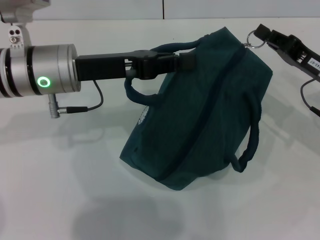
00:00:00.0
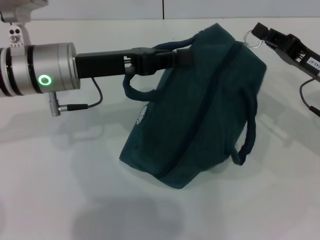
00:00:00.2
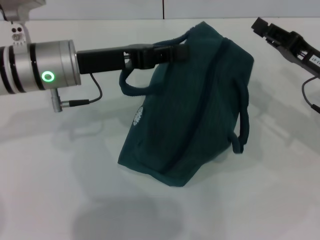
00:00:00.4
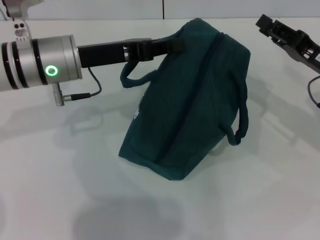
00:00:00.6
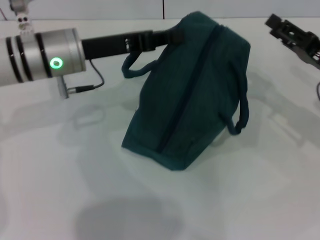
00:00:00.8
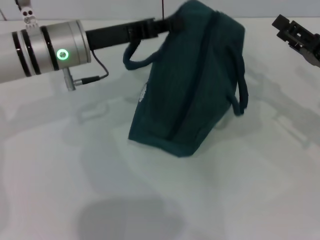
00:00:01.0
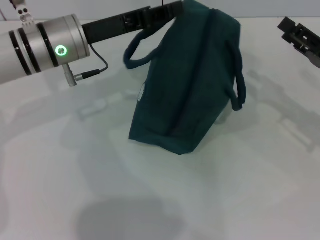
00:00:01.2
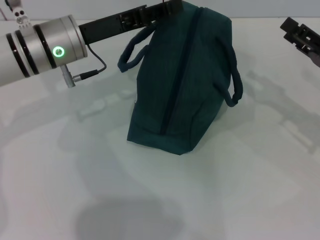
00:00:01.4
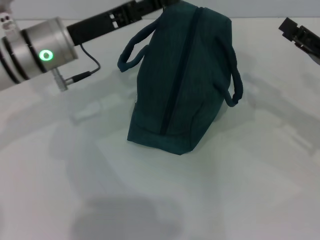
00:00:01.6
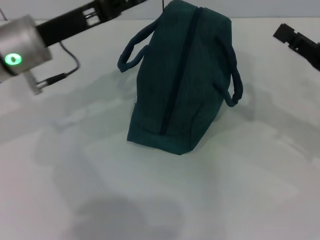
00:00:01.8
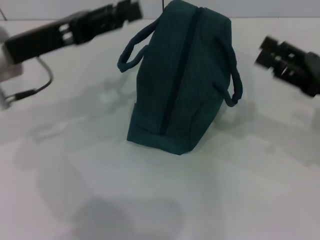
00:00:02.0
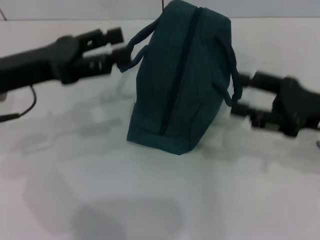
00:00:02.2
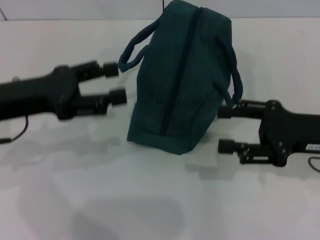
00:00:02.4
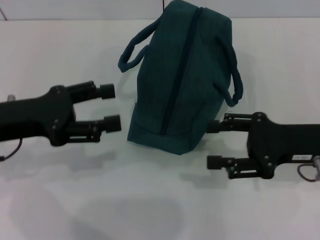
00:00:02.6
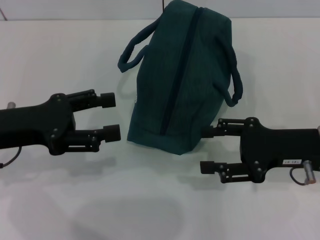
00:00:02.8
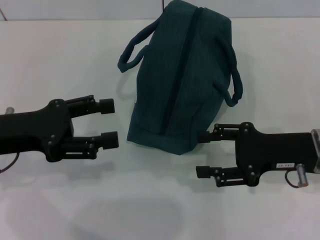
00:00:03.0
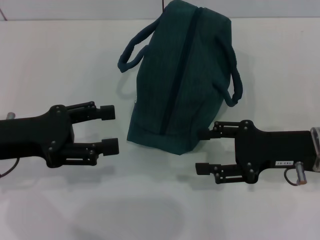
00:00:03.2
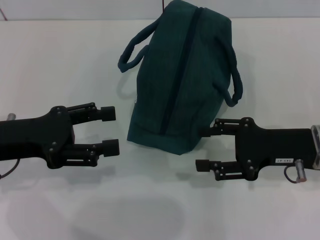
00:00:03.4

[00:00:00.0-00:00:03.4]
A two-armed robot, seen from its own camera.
Step, 00:00:00.4 to 00:00:01.4: Hold the lunch bag with your left hand.
00:00:00.0 to 00:00:01.6: The right gripper opens up, while the left gripper opens.
00:00:01.6 to 00:00:03.4: The right gripper is displaced to the left by some 5 cm. Meanwhile the left gripper heads backward and to the left, covering some 15 cm, and opens its fingers.
